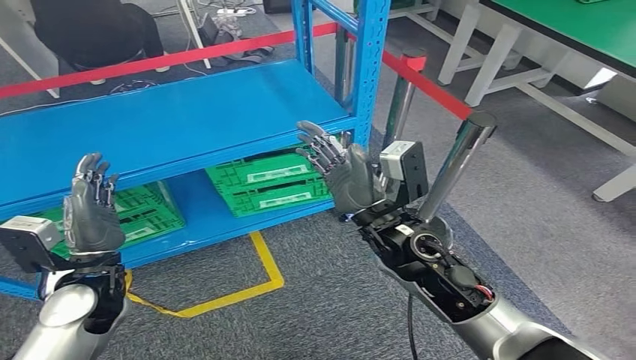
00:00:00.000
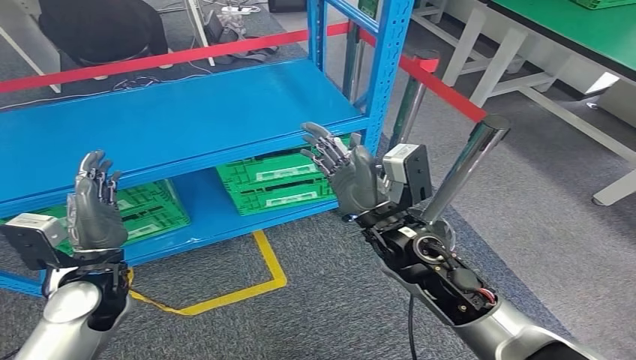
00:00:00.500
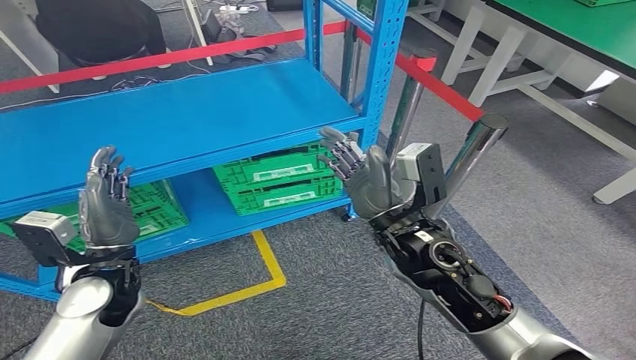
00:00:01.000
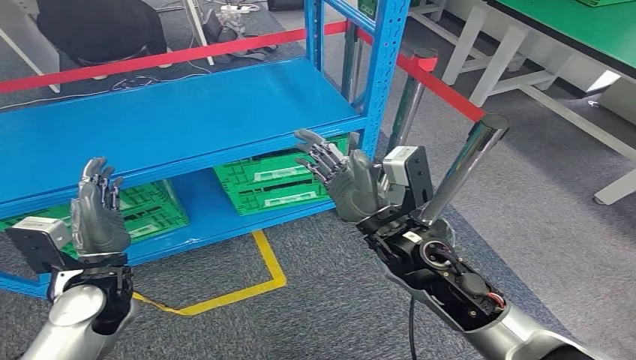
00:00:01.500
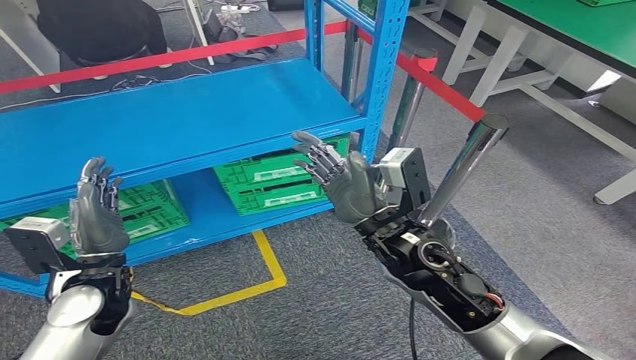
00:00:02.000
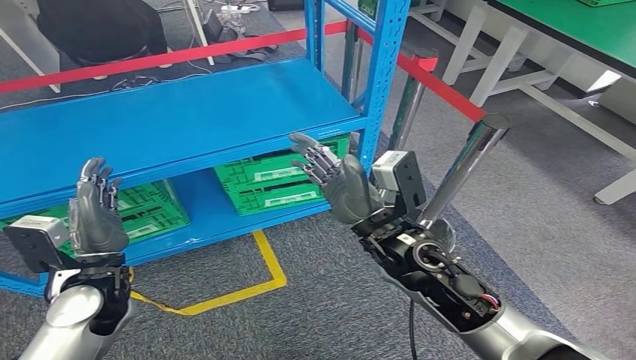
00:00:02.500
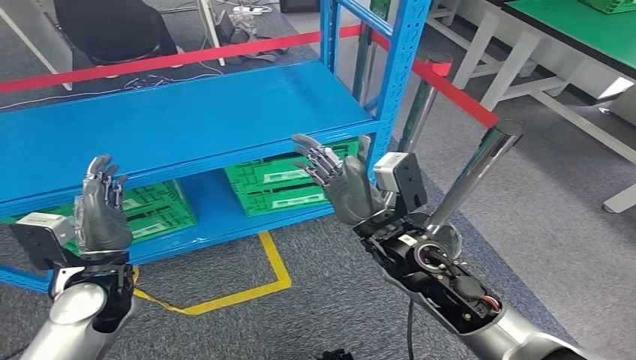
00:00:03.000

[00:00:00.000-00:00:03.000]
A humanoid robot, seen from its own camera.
Step, 00:00:00.000 to 00:00:03.000: Move to the initial position of the workbench.
00:00:00.000 to 00:00:01.500: The hands stay close to where they were, moving slightly.
